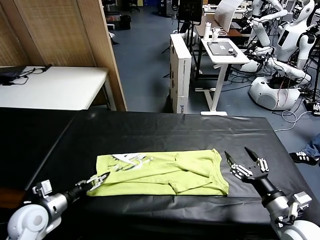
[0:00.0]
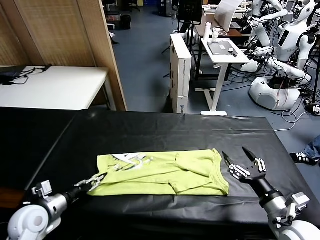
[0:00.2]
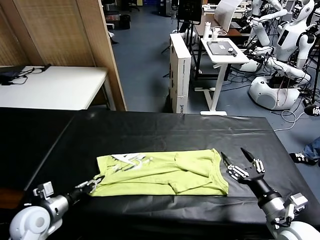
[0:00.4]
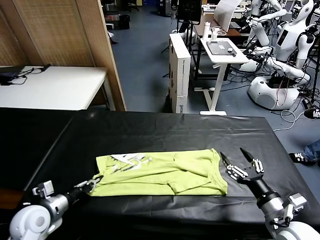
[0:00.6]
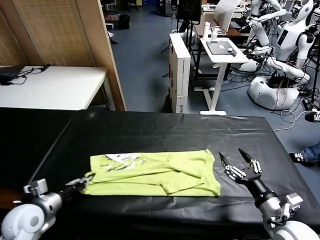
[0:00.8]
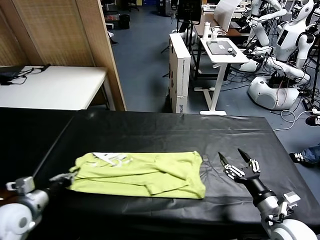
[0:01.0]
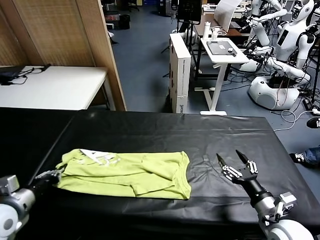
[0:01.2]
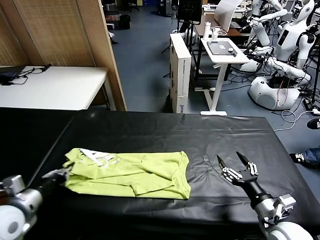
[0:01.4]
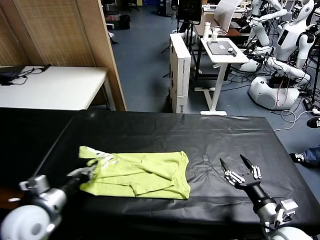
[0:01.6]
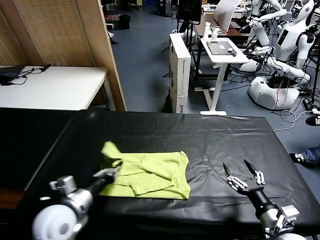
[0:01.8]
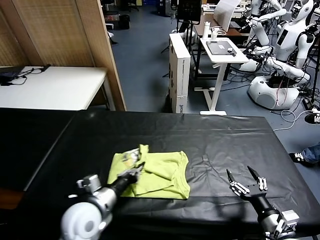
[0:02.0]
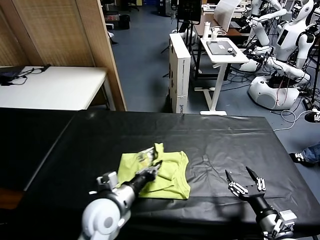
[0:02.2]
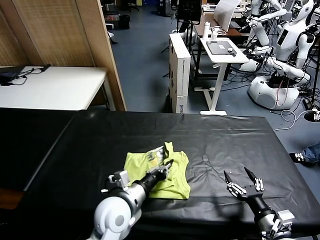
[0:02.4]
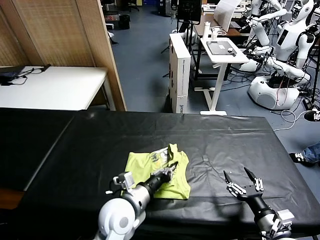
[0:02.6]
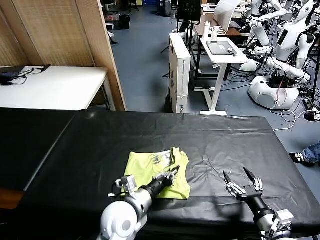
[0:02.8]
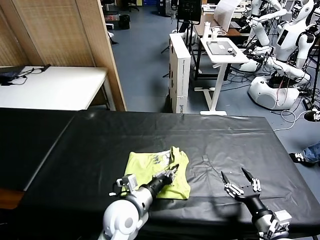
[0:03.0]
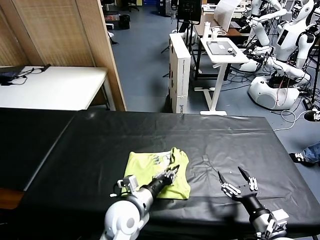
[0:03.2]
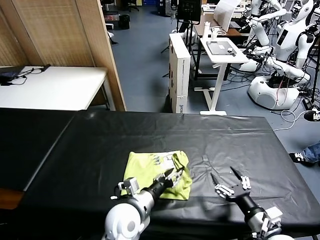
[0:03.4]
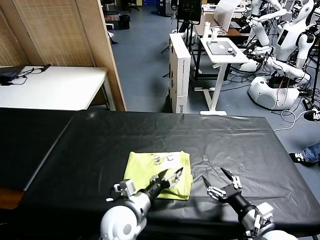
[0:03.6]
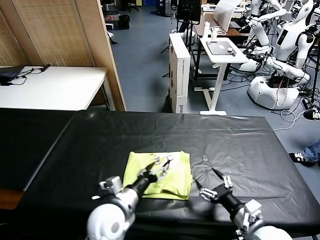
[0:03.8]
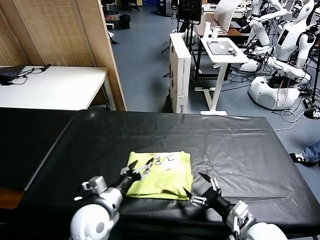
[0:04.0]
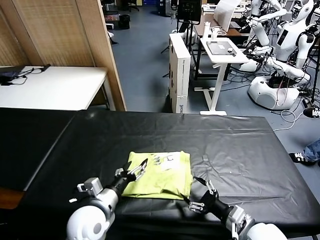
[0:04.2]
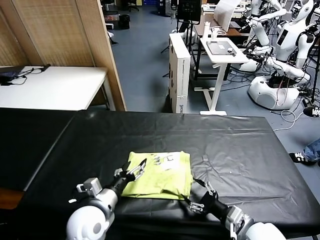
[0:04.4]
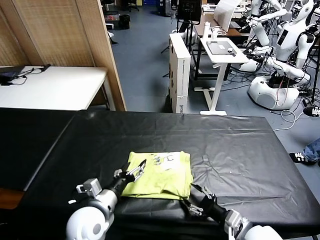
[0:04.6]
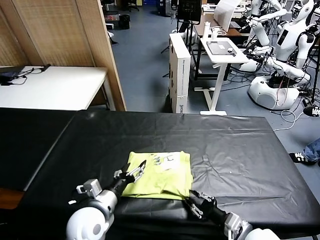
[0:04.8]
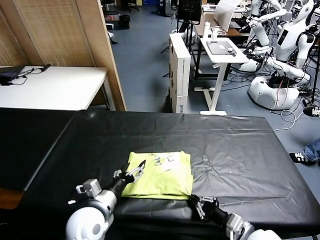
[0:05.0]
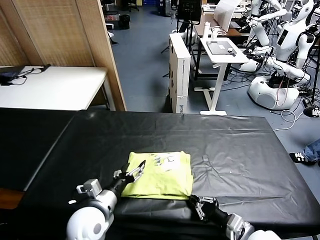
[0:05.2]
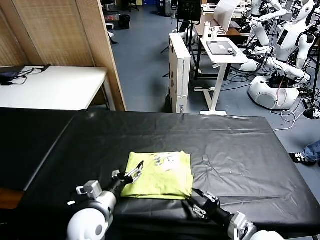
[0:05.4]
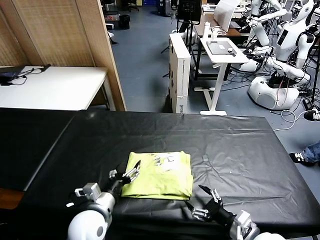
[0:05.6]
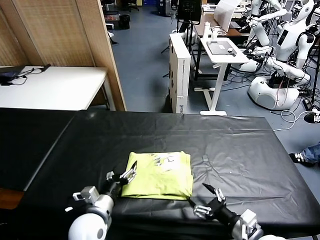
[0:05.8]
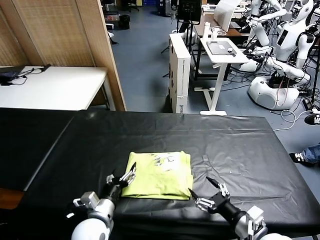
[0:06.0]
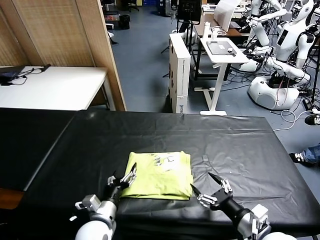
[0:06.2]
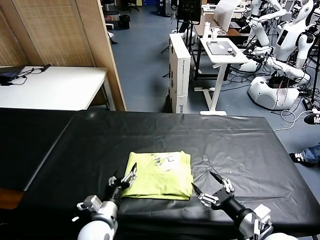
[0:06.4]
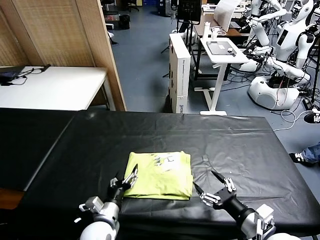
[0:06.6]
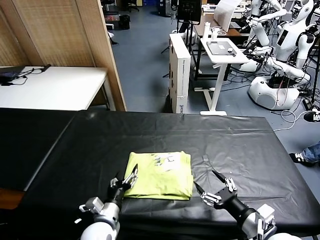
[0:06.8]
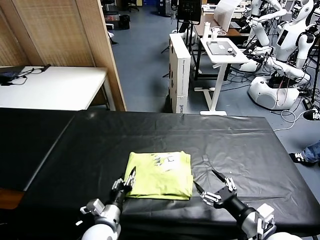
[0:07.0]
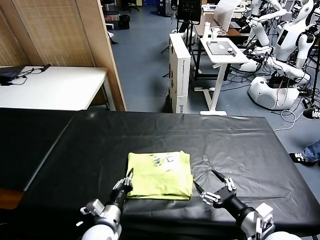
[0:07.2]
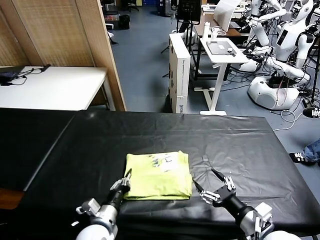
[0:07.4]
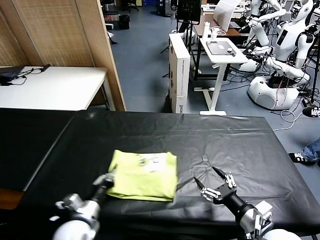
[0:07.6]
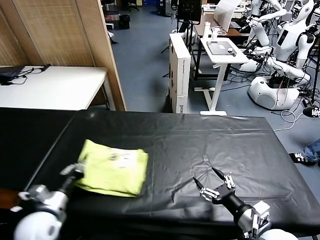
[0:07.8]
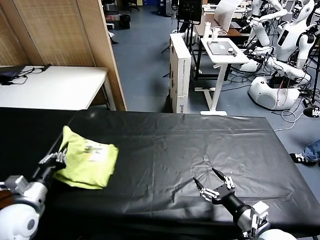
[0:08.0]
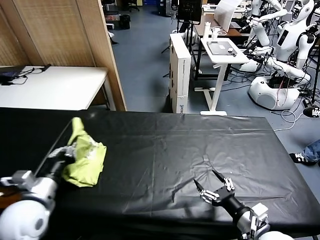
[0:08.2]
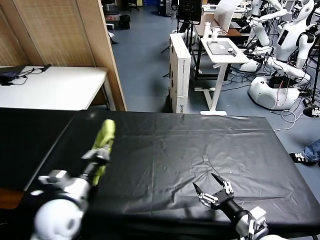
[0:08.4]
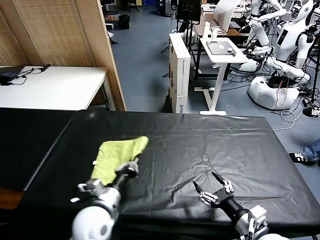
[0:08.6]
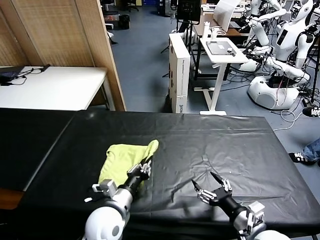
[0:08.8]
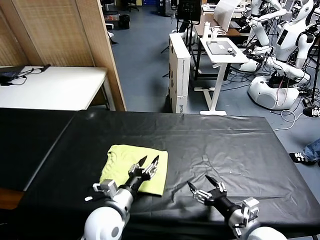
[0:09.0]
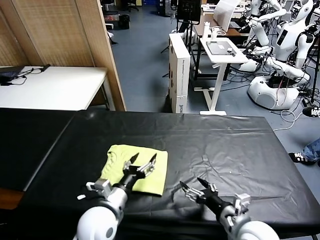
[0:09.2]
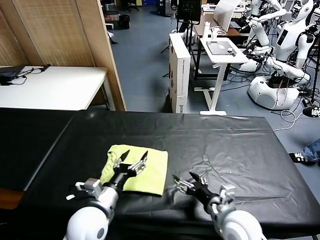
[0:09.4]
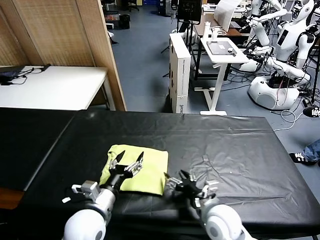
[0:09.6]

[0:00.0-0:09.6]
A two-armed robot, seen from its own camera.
Task of the whole recording: fold and organize the clothes.
Step, 0.6 to 3.4 s: use the left gripper to drag the left edge of the fabric to the left and folds it over the right edge.
Step, 3.6 to 8.8 s: Flip the folded clothes over with left gripper.
0.0 to 1.6 s: The left gripper is displaced to the right and upward by roughly 10 cm, and closes.
1.6 to 3.2 s: The left gripper shifts some 15 cm to the right, and opens its fingers.
3.2 to 4.8 s: The left gripper moves to the left, roughly 10 cm, and opens up; the right gripper closes its fingers.
4.8 to 6.4 s: The right gripper shifts roughly 5 cm upward, and opens; the left gripper goes about 10 cm downward.
6.4 to 8.0 s: The left gripper shifts approximately 20 cm upward and to the left, and closes up.
8.0 to 9.6 s: The right gripper goes about 15 cm to the left and forward. Meanwhile the left gripper is displaced to the right by approximately 15 cm, and opens up.

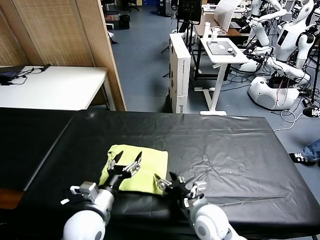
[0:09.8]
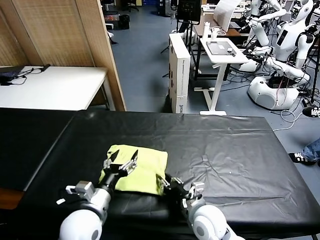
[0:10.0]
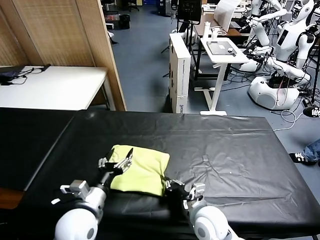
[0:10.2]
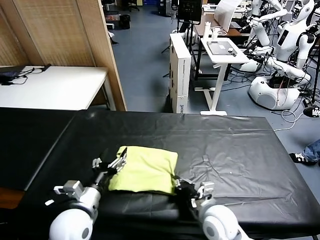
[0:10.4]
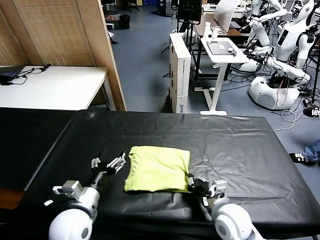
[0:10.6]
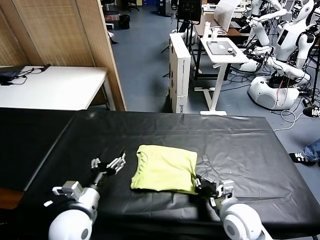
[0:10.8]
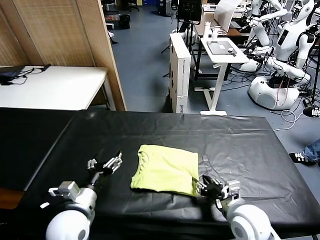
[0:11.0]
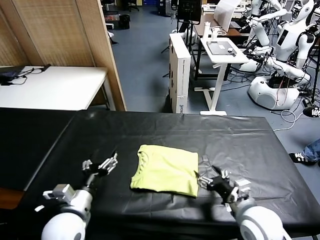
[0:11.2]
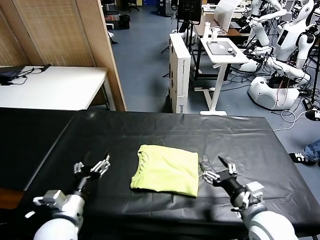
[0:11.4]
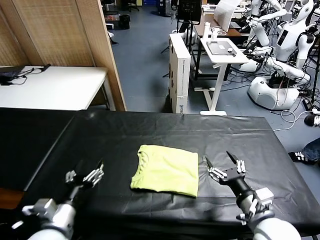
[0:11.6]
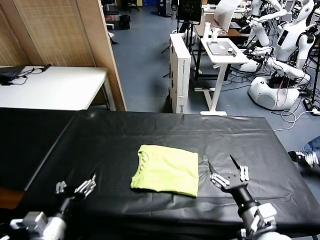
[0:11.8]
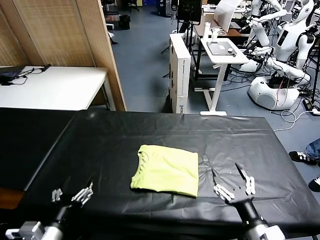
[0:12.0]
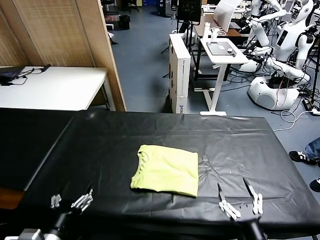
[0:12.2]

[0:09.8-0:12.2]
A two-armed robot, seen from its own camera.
Task of the whole recording: fold and organize the clothes.
Step, 9.8 to 11.0 s: Drag the clothes to the center of the table.
9.8 to 11.0 s: The right gripper is displaced to the right and upward by about 15 cm, and closes, then opens again.
11.0 to 12.2 s: Both grippers travel together backward, about 15 cm.

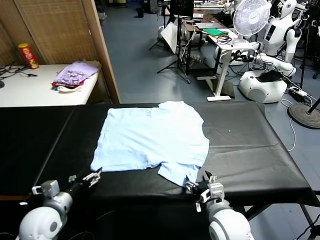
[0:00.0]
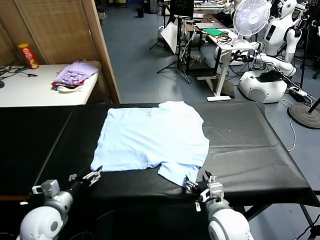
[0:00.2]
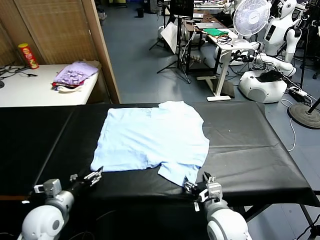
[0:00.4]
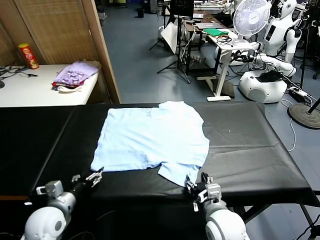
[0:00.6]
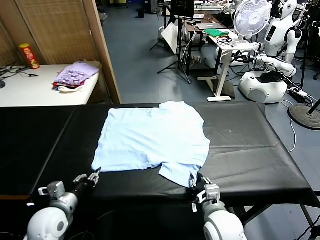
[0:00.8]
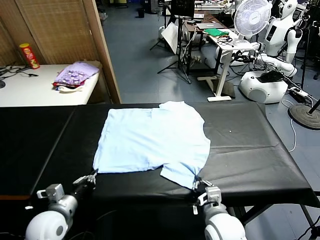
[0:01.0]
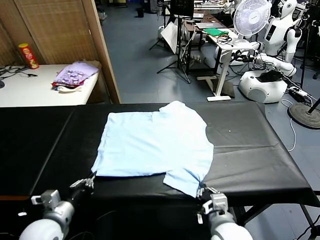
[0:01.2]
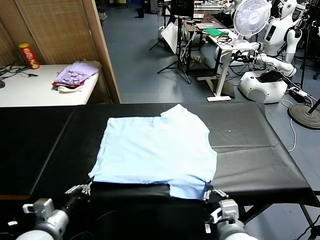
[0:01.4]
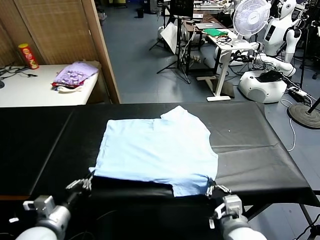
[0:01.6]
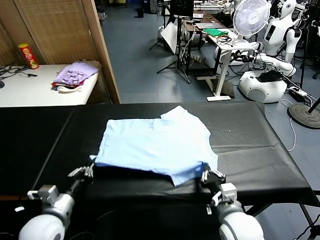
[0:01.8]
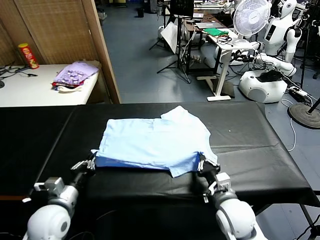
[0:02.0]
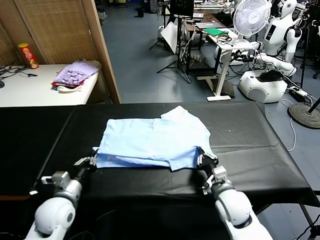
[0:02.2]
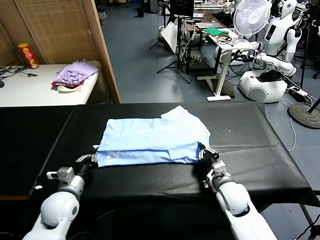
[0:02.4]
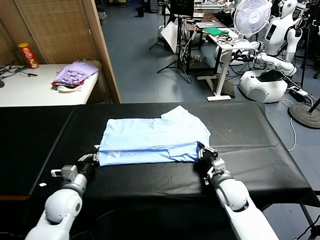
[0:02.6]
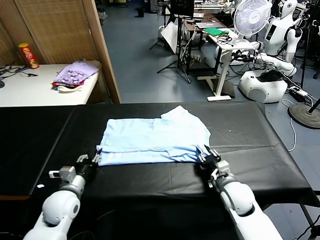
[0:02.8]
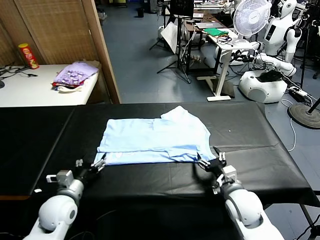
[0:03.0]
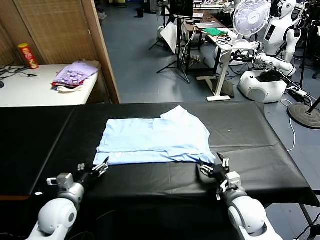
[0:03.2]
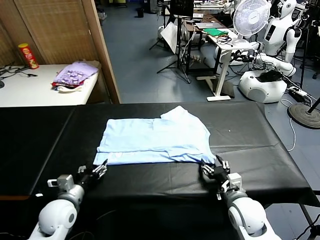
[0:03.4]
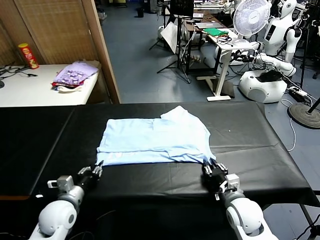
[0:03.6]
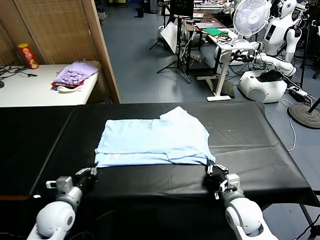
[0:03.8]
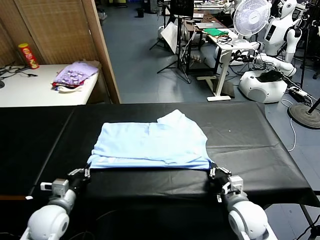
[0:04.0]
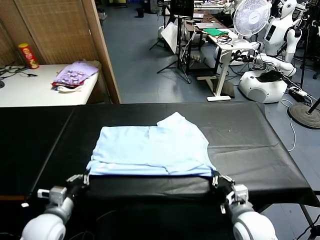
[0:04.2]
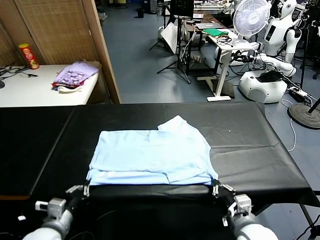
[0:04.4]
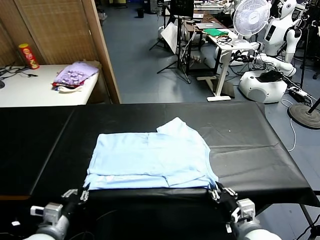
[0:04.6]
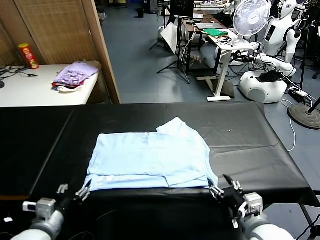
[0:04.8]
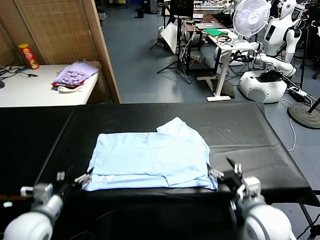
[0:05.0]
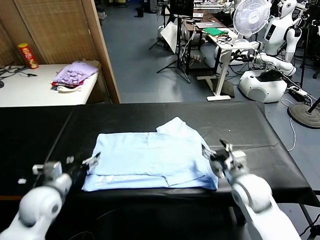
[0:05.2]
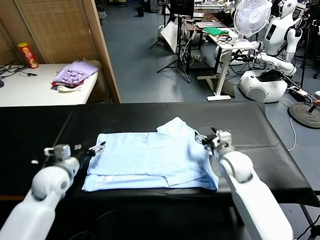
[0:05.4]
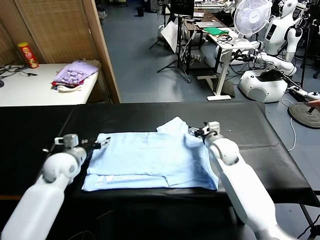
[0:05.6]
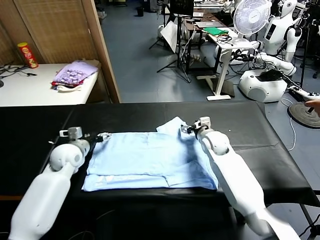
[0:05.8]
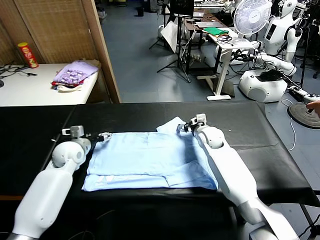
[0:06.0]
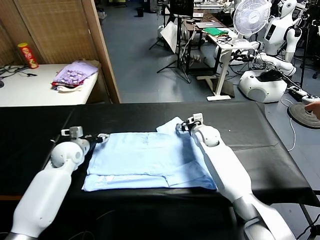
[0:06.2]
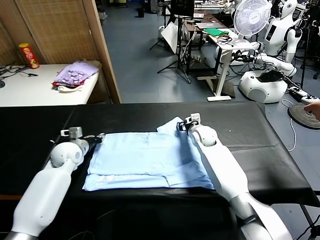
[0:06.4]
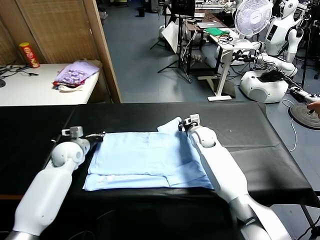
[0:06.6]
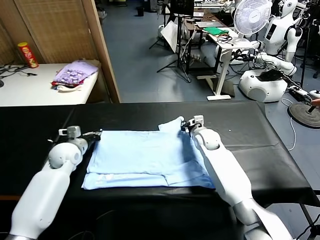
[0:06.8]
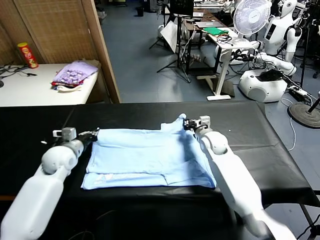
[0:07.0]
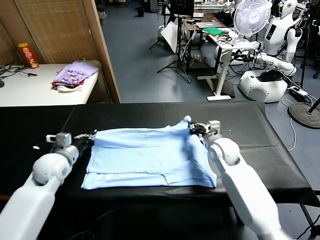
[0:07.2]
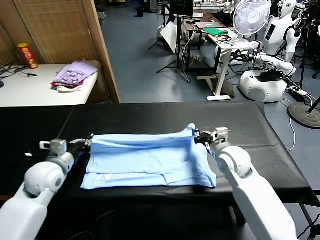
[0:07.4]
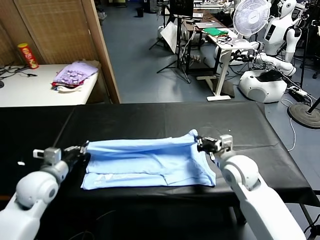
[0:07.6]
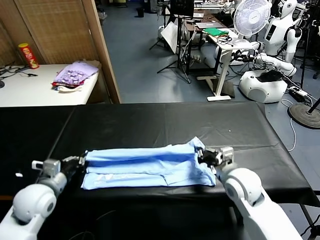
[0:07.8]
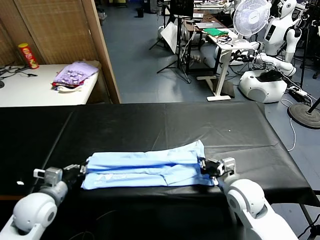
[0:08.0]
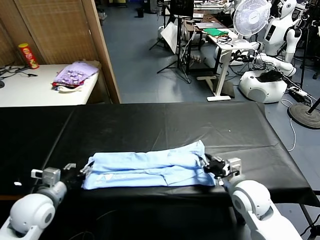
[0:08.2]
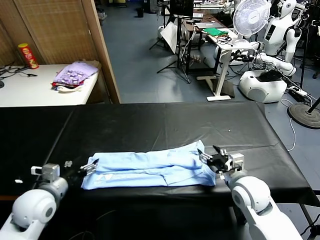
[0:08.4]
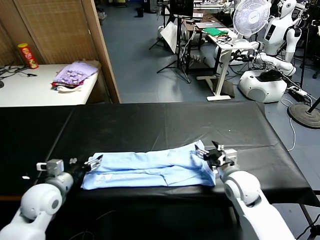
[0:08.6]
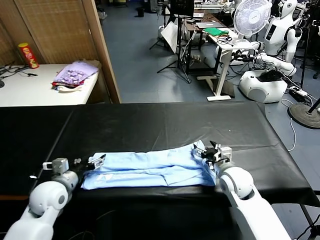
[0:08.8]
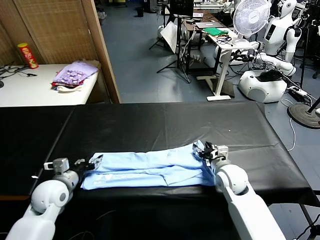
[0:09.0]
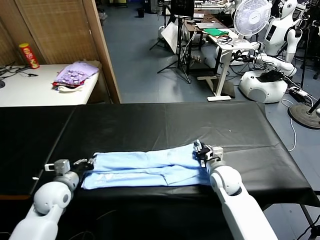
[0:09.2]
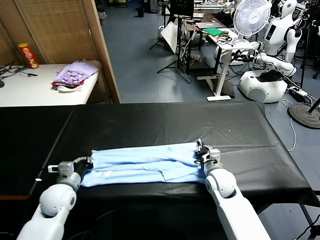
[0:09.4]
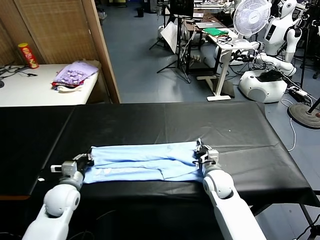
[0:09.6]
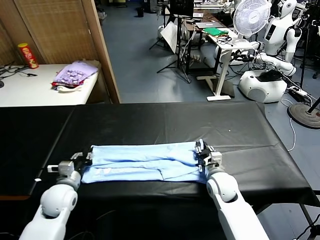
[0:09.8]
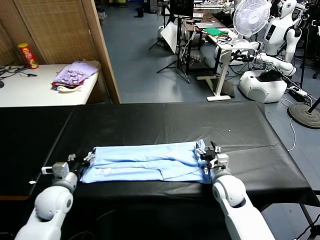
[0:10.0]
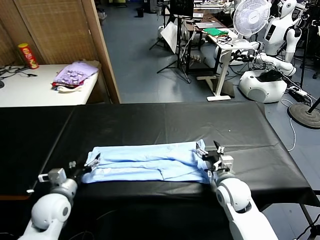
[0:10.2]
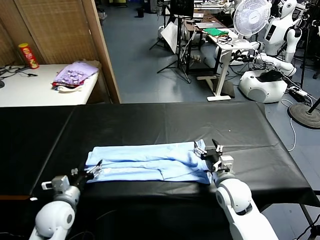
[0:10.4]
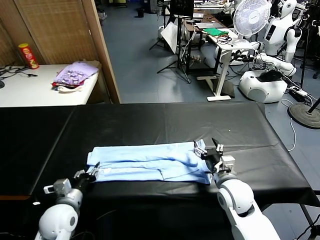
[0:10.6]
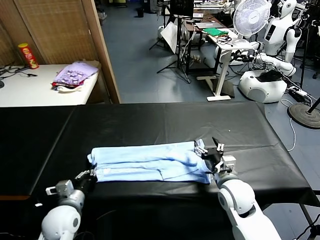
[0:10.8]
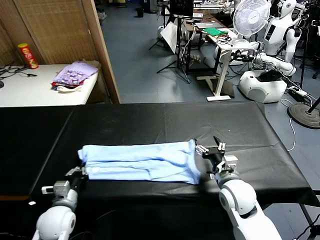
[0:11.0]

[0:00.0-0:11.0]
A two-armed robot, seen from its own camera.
Task of the whole recording: fold and organize the clothes.
Step, 0.0 to 0.8 s: use both grippers simultaneously to clamp the lower edge of the clothing fabric.
Step, 1.2 to 2.6 s: use both grippers to drag the lower edge of the fabric forward and fold it over the upper edge.
Step, 2.8 to 4.6 s: Drag the clothes downward with both gripper.
Step, 4.8 to 6.4 s: use both grippers simultaneously to clamp the upper edge of the clothing fabric.
Step, 6.8 to 8.0 s: use both grippers to drag the upper edge of the fabric backward and fold it over the lower edge.
Step, 8.4 to 10.8 s: use the left gripper to clamp the left edge of the fabric.
1.6 to 3.2 s: The right gripper travels forward and back again, some 10 cm each way, and opens up; the left gripper travels forward and downward by some 10 cm, and opens.
3.2 to 4.8 s: The right gripper is displaced upward by about 10 cm, travels backward and back again, approximately 10 cm each way, and opens. Meanwhile the left gripper shifts about 10 cm backward and upward, and closes and opens again.
4.8 to 6.2 s: Both grippers move forward, some 30 cm. The left gripper closes its fingers. Meanwhile the right gripper closes up.
6.2 to 7.8 s: The grippers both shift backward by about 20 cm. The left gripper closes its fingers.
7.8 to 9.4 s: The right gripper heads downward and forward, covering roughly 10 cm, and opens, then closes again. Meanwhile the left gripper heads downward, covering roughly 5 cm, and opens, then closes again.
9.4 to 11.0 s: The left gripper is displaced backward by about 5 cm, and opens, then closes again. The right gripper travels backward and upward by roughly 10 cm, and opens up.
